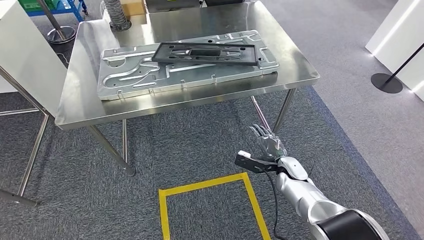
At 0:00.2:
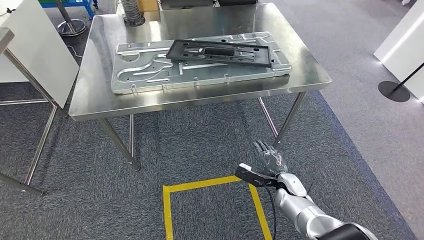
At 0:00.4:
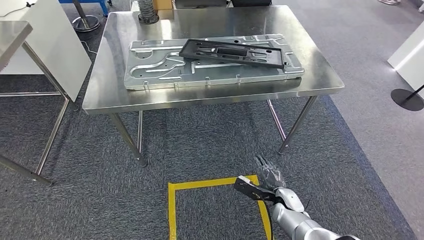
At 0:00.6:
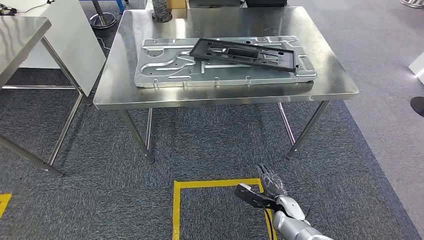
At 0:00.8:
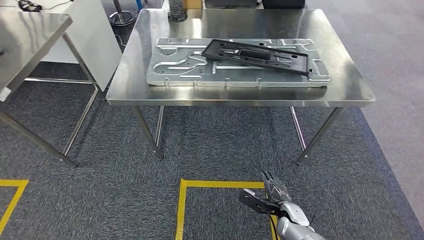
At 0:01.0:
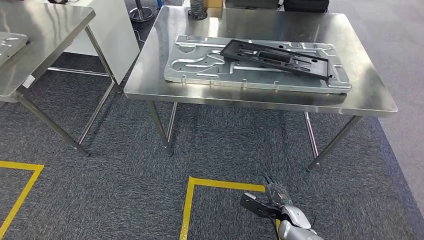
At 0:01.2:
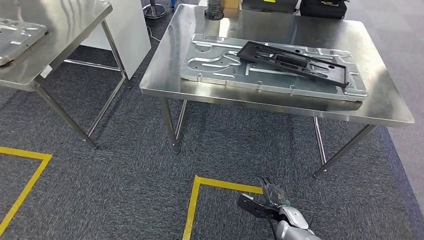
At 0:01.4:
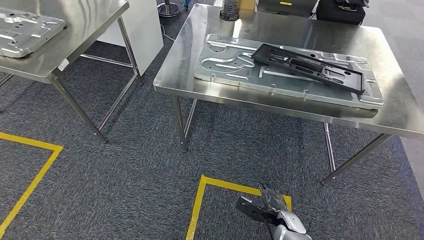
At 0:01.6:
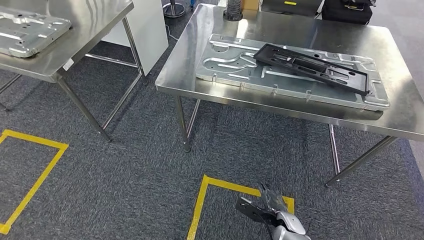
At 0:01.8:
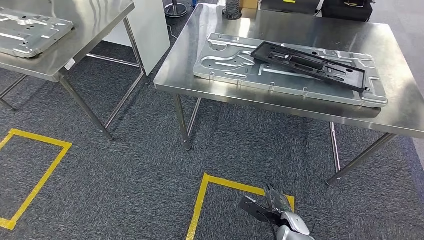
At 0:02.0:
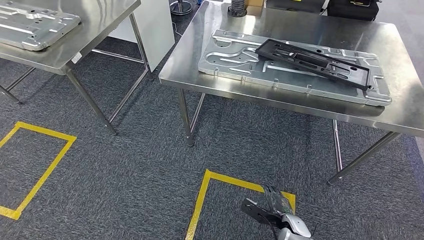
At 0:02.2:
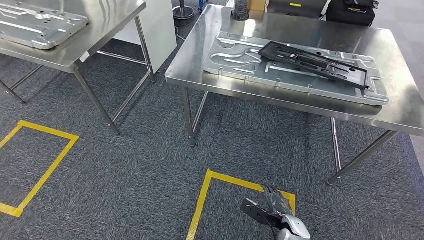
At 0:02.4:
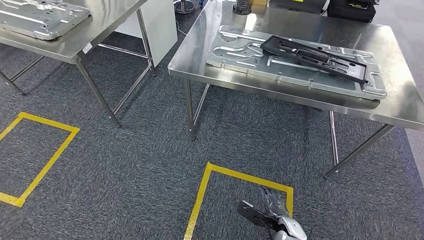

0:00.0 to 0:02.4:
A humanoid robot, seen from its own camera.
Step, 0:00.0 to 0:02.4: Move to the initial position of the shelf.

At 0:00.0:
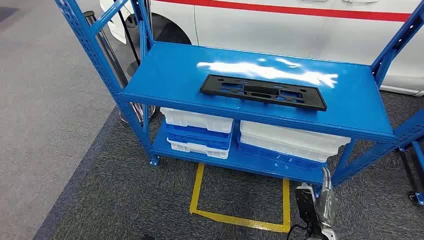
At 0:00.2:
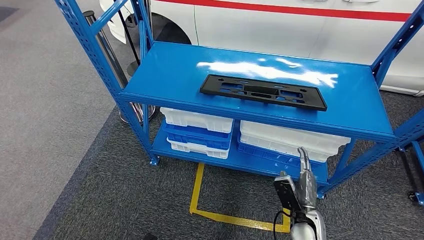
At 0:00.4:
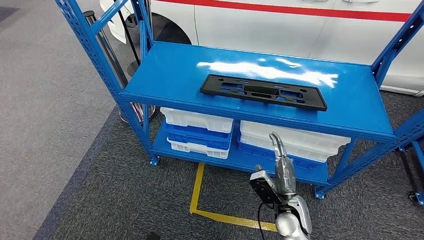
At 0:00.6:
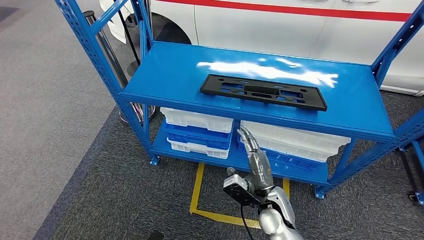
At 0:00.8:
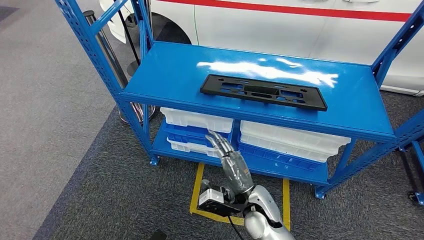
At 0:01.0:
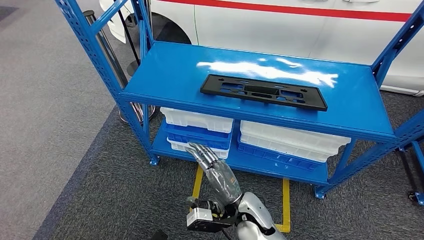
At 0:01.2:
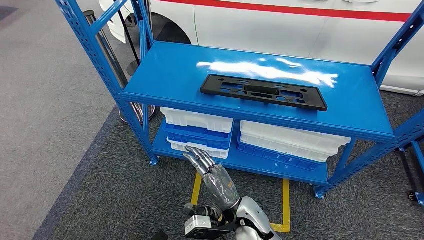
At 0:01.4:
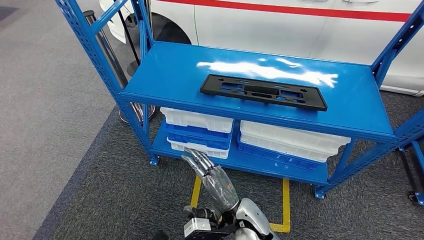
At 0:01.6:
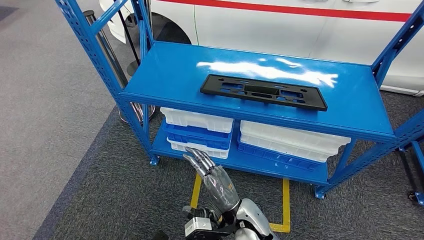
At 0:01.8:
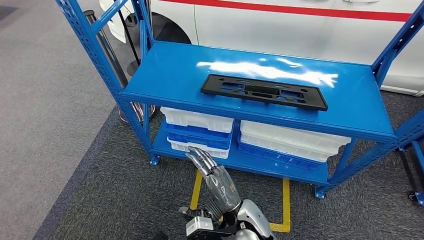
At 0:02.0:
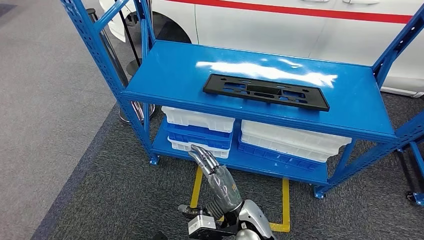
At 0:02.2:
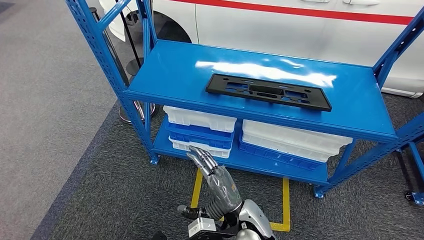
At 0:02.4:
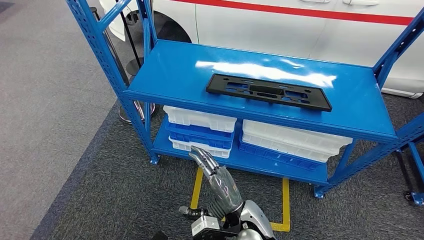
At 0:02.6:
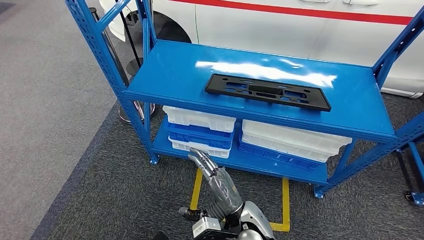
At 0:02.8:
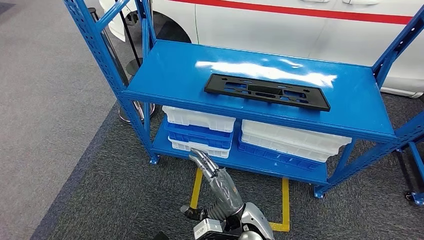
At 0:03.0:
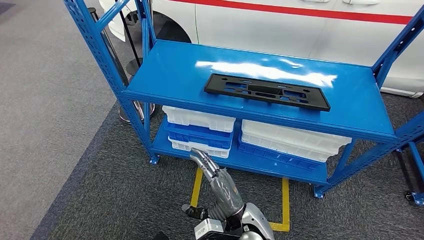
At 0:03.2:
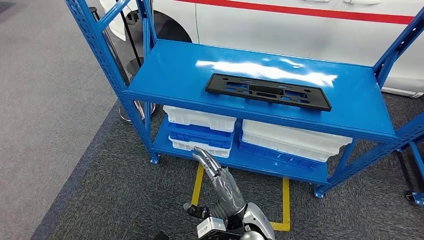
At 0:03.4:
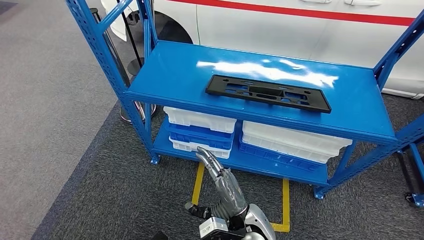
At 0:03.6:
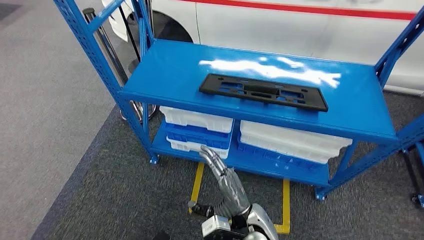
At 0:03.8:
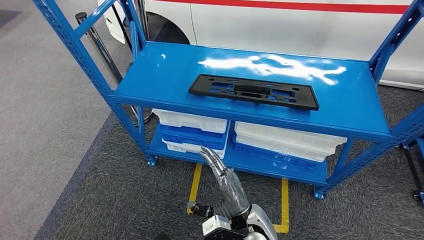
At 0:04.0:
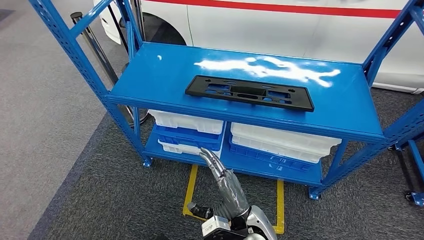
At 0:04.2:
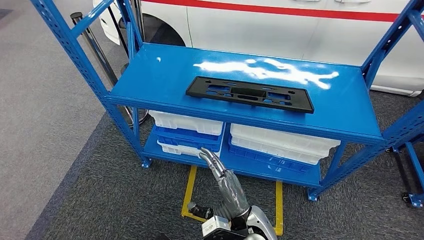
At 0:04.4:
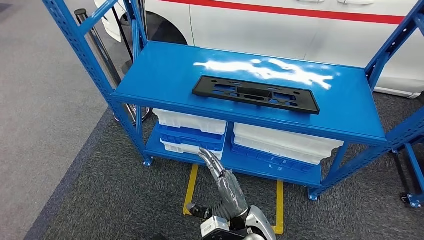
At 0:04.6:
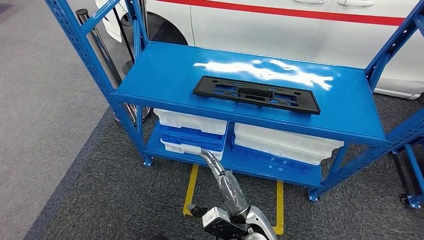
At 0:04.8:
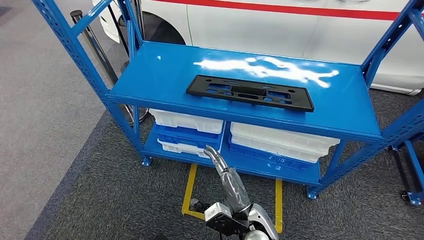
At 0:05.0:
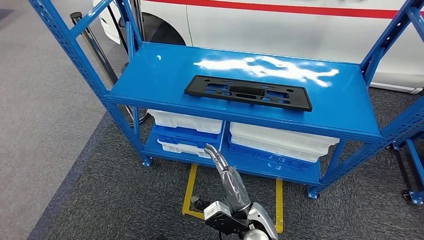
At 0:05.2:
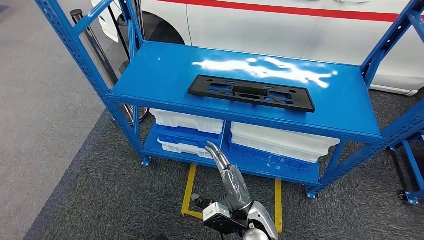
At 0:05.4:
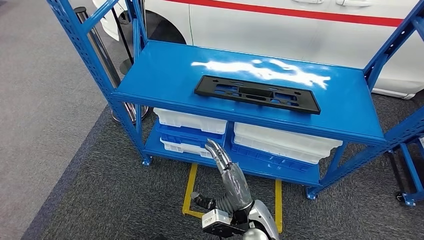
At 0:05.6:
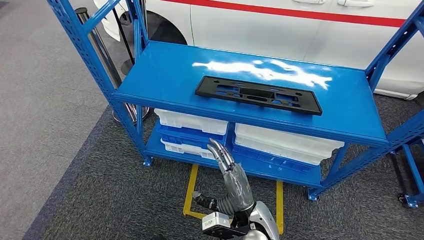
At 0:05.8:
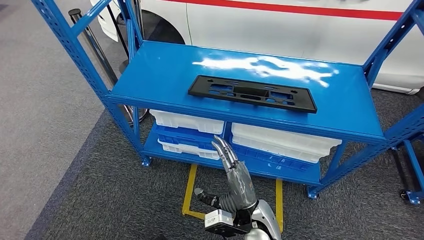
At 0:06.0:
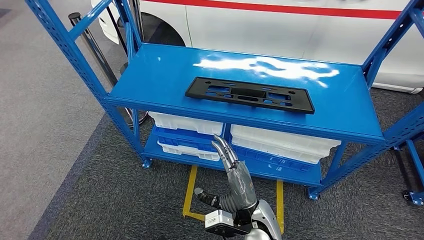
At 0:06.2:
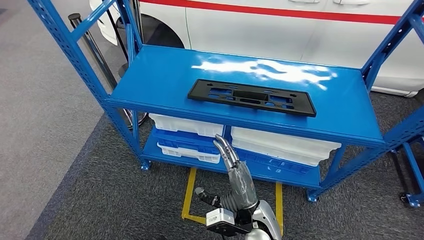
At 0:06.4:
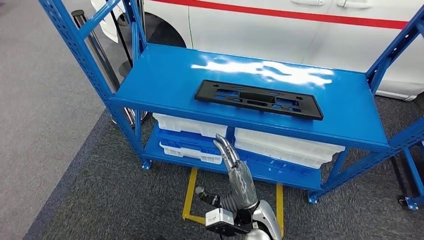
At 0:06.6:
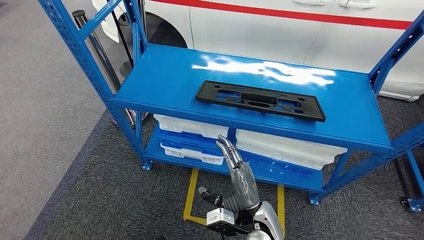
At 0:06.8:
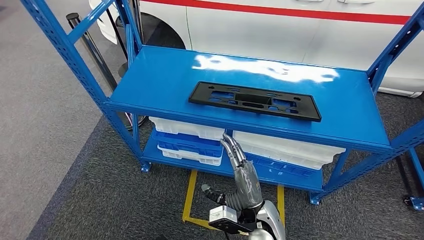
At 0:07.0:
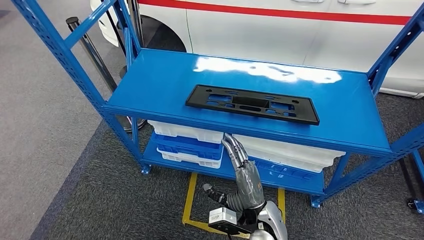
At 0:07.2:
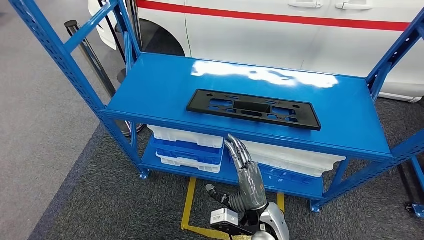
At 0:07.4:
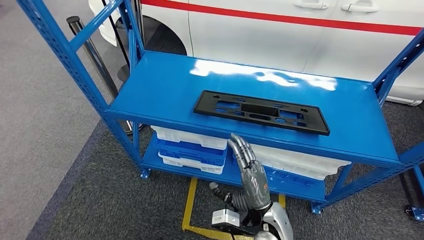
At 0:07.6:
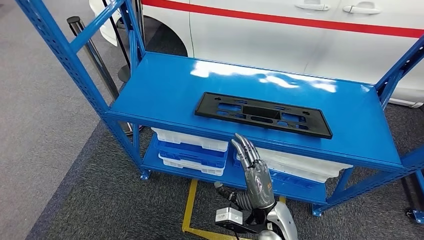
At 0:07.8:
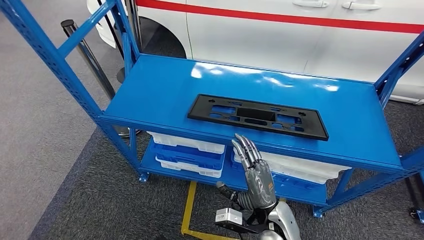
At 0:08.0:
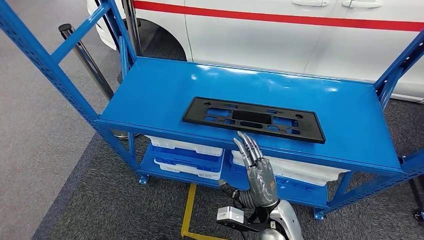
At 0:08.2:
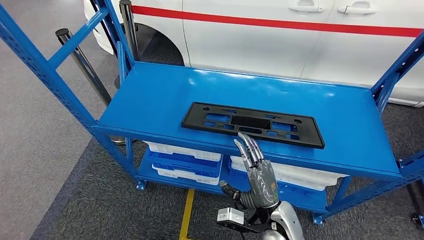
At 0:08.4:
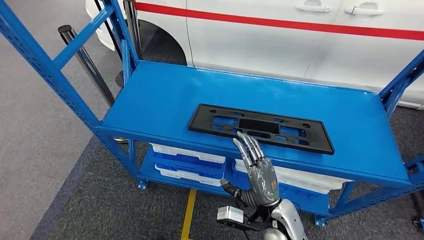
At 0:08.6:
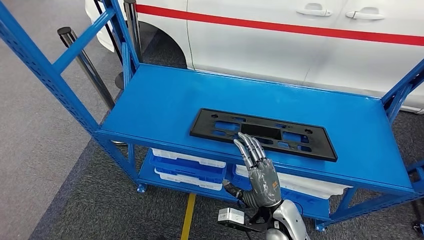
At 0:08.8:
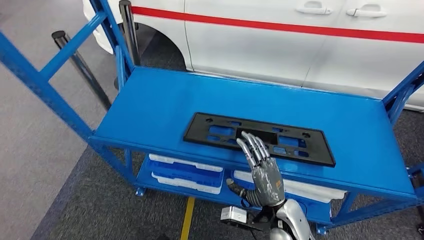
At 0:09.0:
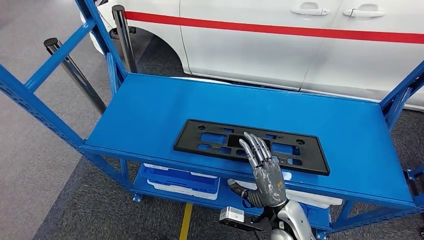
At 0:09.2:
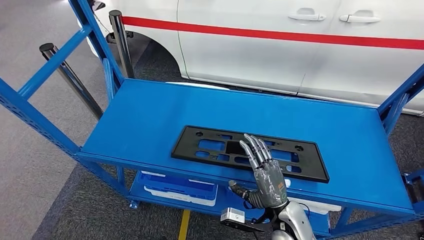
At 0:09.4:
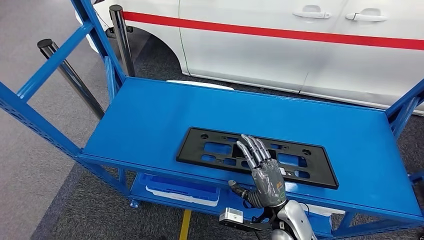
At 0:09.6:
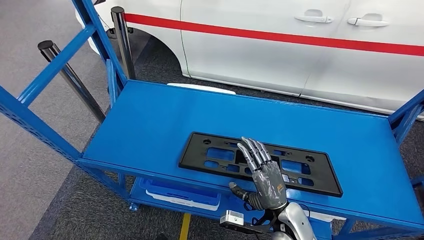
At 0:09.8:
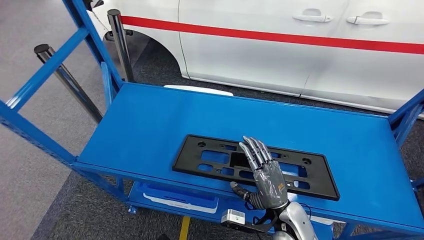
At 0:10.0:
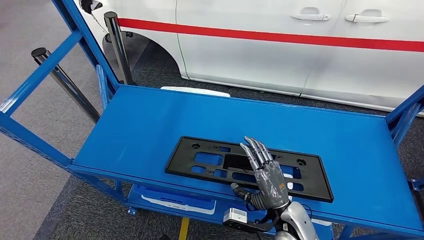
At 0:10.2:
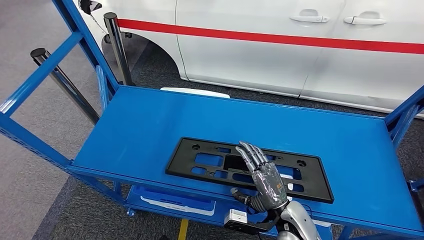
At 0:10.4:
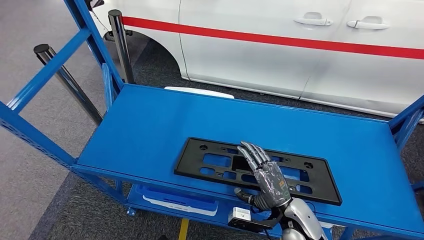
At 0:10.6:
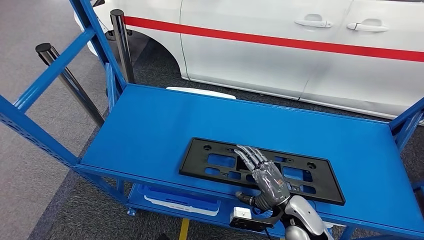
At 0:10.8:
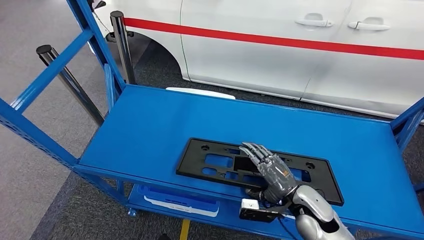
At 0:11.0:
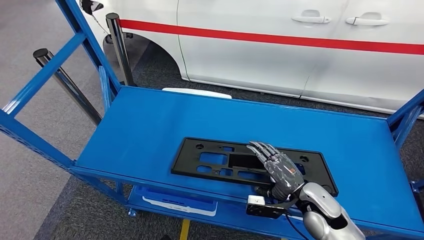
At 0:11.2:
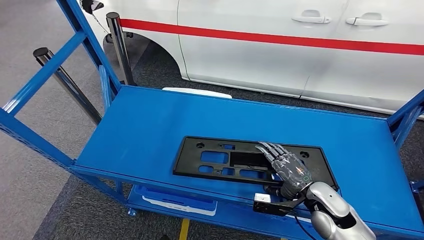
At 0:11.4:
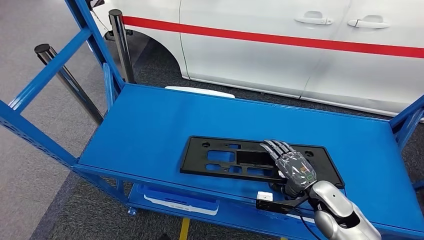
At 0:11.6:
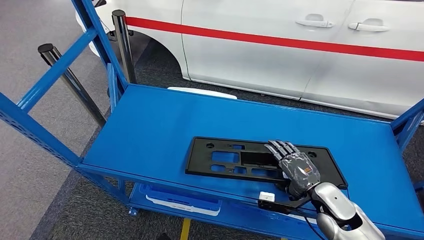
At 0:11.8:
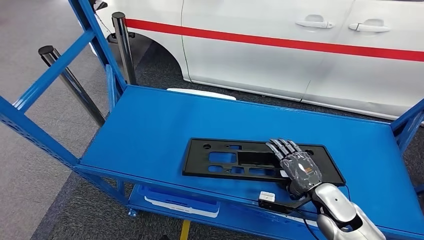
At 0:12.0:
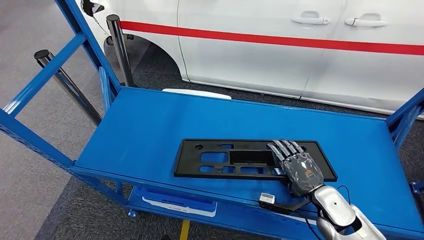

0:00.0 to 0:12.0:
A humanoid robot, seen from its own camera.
0:01.6 to 0:03.0: The hands move only a little.
0:10.4 to 0:12.0: The right hand shifts approximately 10 cm to the right.

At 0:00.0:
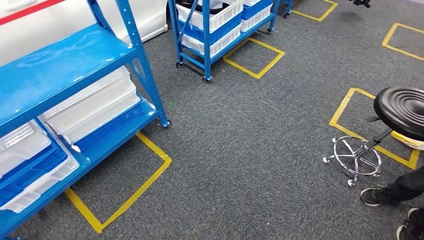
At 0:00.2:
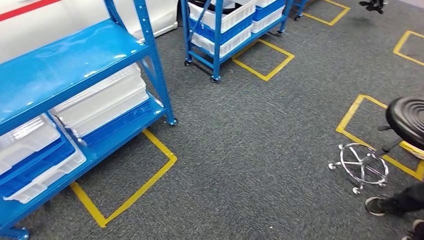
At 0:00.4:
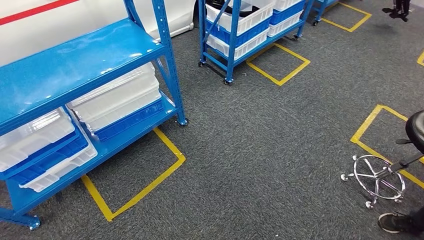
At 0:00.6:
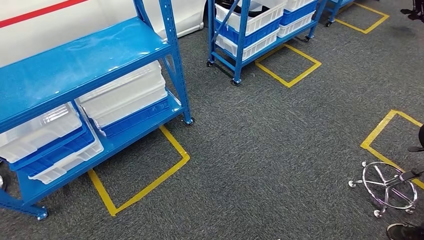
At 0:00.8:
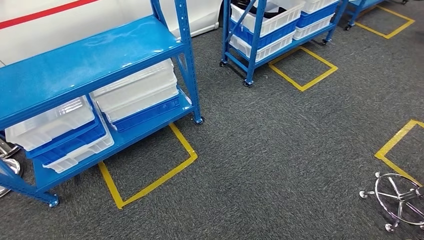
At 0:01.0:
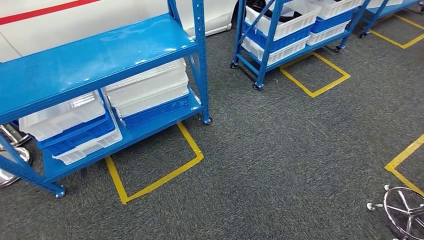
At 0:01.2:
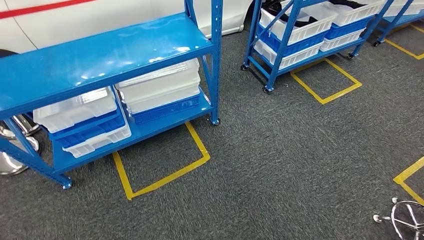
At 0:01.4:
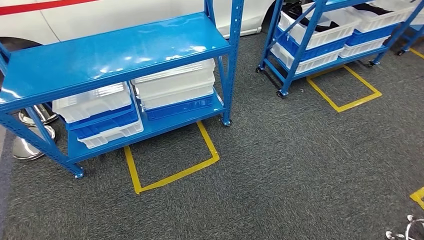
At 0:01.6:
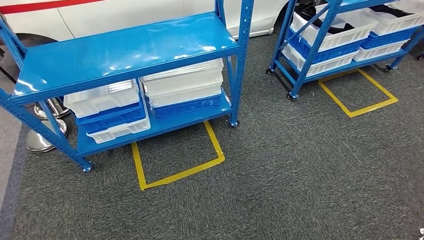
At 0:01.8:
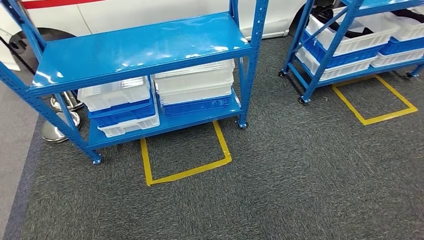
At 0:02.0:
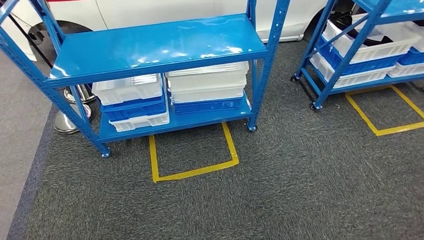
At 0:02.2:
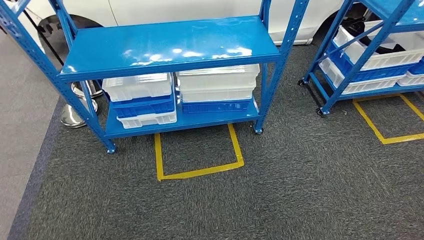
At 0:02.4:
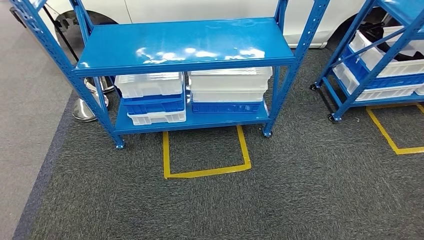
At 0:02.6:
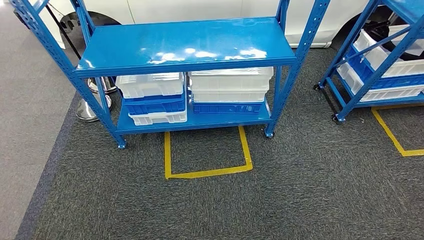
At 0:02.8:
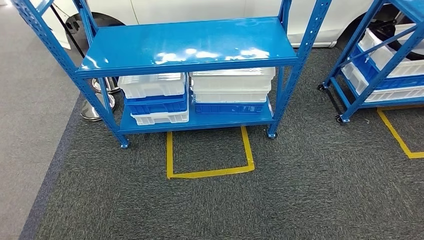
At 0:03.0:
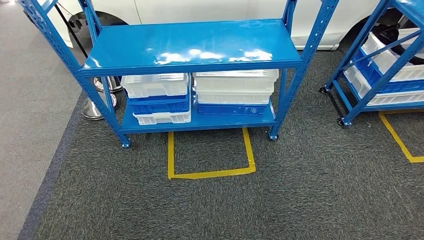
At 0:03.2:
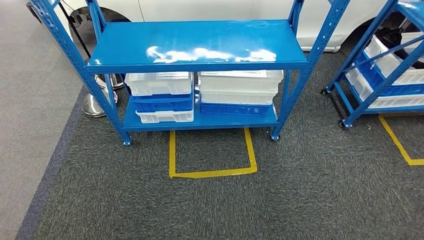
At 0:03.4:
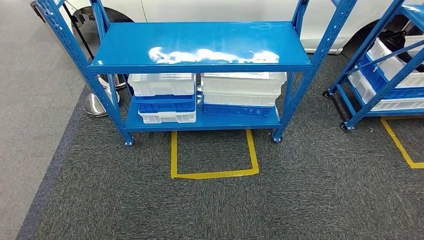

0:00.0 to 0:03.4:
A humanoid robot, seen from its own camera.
Step, 0:00.0 to 0:03.4: Move to the initial position of the shelf.
